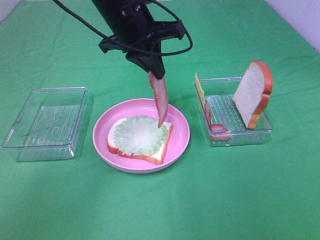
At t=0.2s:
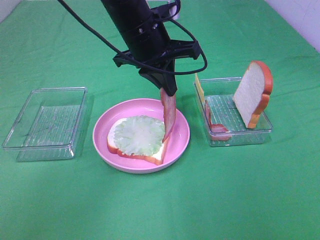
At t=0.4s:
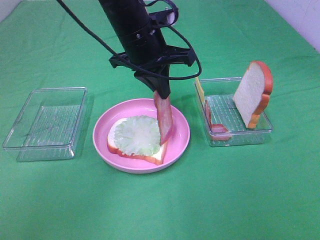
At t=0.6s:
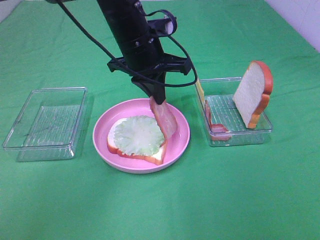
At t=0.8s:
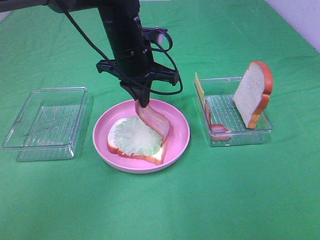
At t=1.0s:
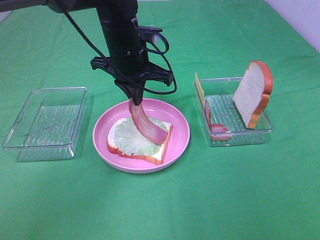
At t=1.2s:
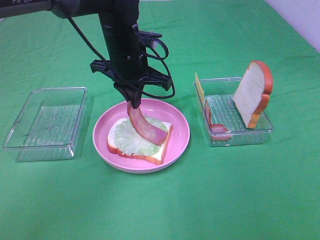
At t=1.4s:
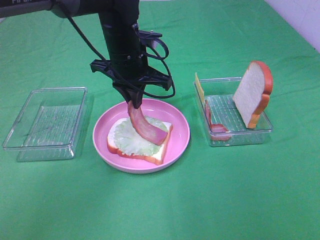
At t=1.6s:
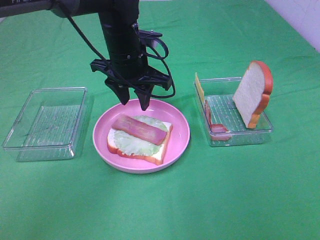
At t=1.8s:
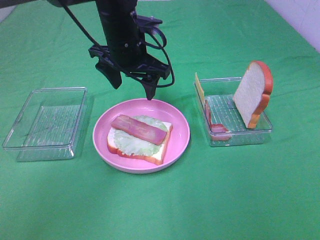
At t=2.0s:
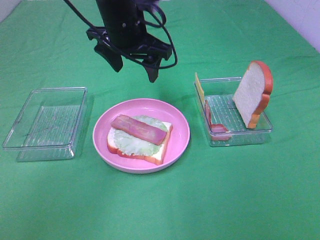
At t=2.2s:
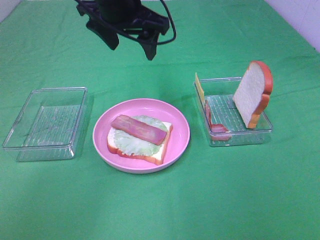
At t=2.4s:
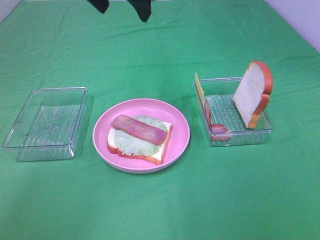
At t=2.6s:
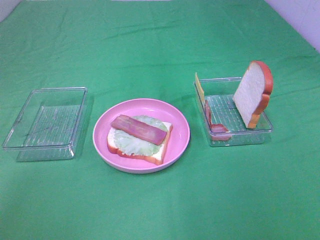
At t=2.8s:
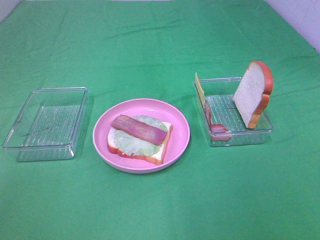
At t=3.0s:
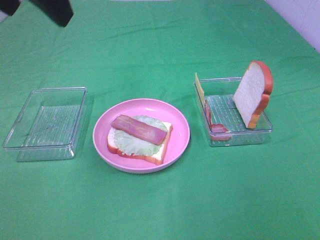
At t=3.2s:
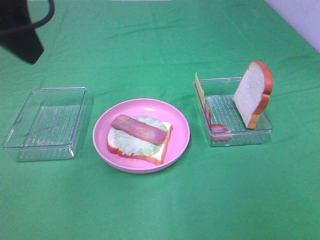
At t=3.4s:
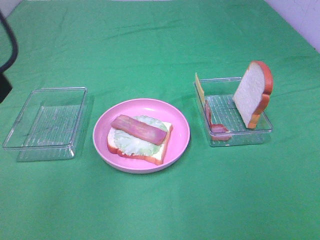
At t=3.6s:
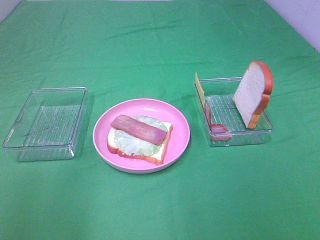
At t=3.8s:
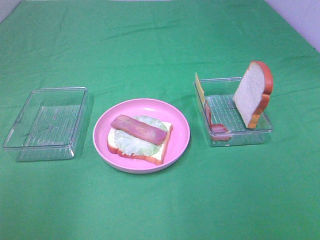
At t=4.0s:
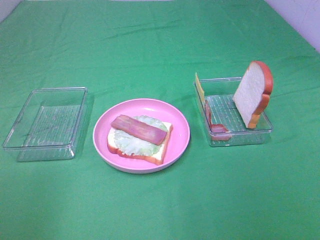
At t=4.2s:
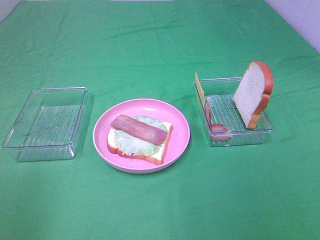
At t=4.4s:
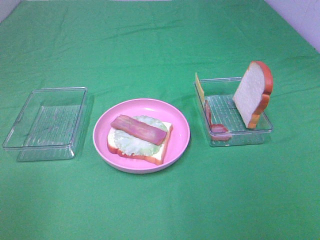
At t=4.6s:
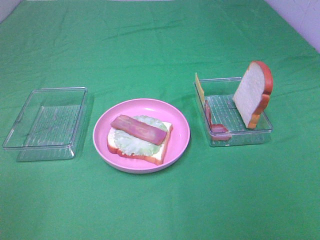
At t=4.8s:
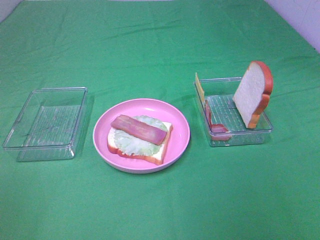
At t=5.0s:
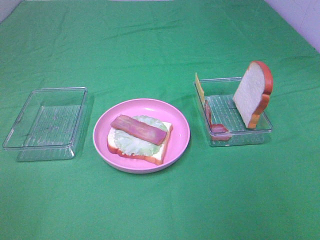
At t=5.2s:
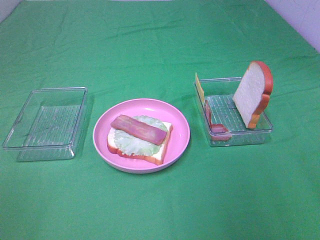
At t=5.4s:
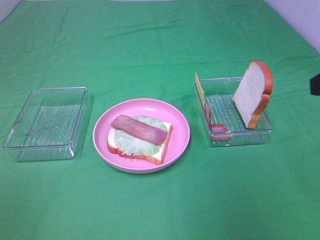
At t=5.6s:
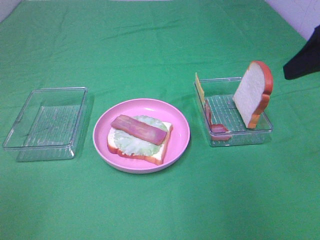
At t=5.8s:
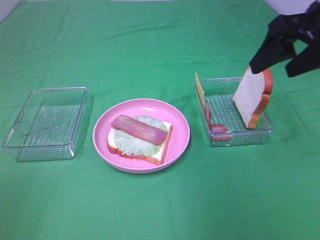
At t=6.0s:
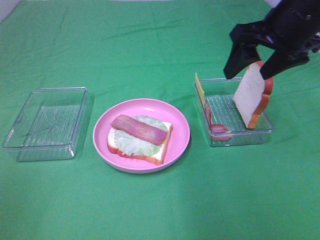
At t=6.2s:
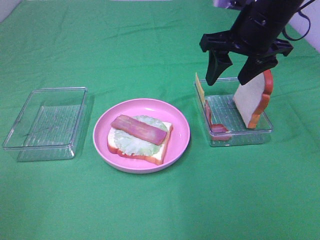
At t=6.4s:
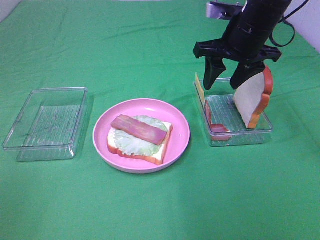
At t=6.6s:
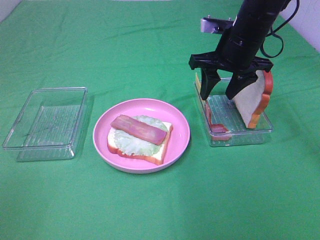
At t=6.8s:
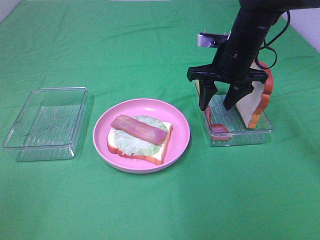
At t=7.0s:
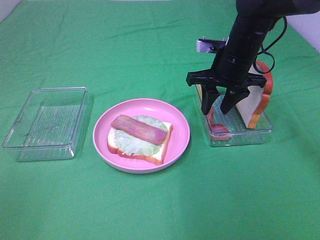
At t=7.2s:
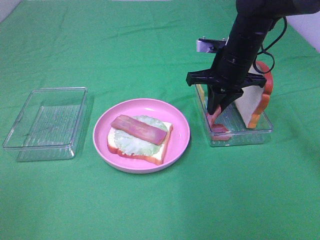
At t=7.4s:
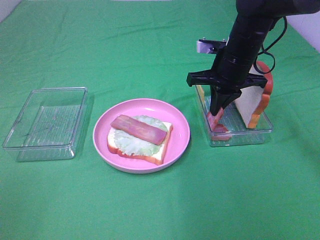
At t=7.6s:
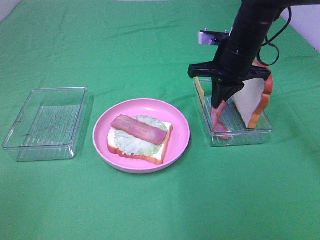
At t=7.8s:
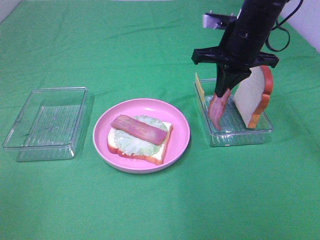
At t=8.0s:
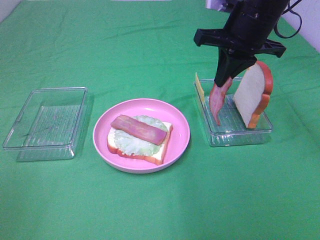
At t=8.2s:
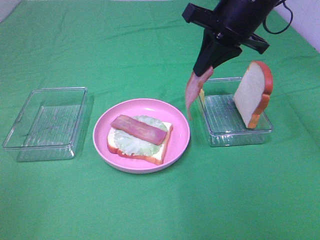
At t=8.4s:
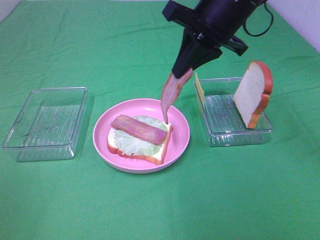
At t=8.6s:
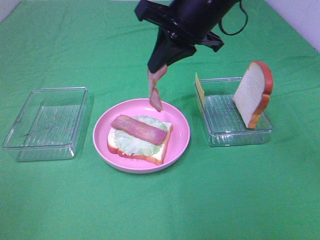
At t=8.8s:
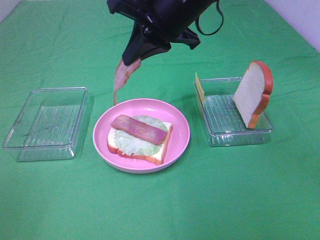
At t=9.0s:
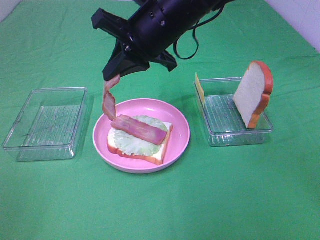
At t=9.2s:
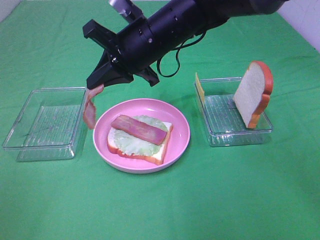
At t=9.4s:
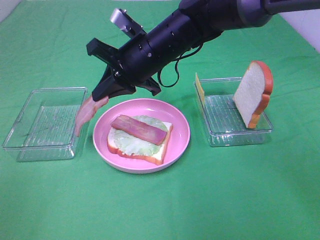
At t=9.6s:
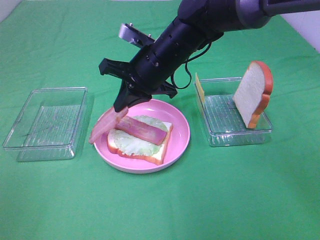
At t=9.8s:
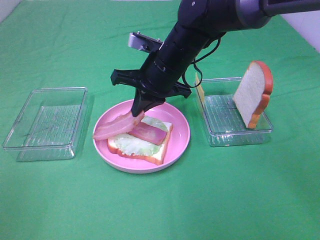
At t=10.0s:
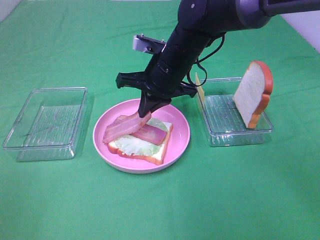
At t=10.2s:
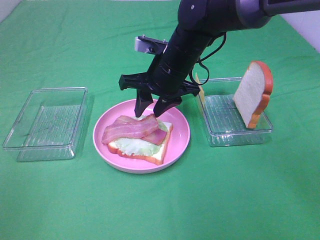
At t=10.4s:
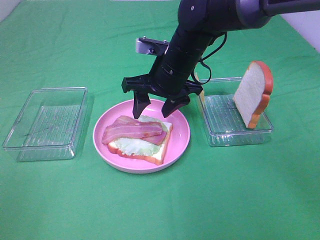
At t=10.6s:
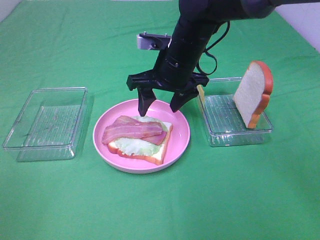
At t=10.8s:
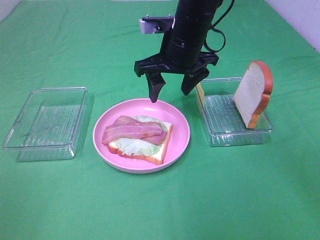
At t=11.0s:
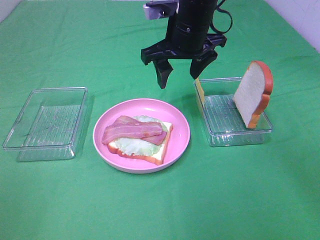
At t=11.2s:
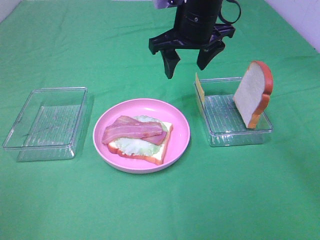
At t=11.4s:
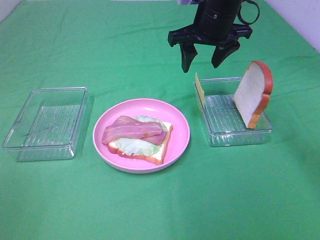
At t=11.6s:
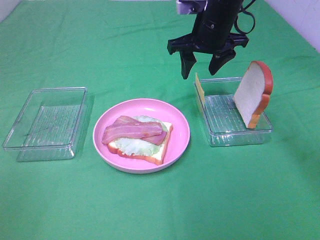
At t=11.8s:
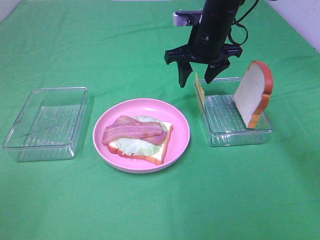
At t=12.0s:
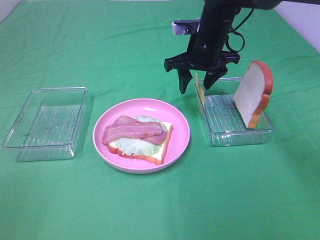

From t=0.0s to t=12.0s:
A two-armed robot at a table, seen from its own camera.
Task of the whole recording: Make sandwiches.
Step, from t=0.0s to t=1.6s: Left hand:place bacon on lettuce slice.
Step, from t=1.8s to t=7.4s: Right hand:grab the bacon.
Step, from t=7.6s to t=10.2s: Right hand:place bacon on bacon.
From t=0.0s to t=1.6s: The left gripper is displaced downward by some 5 cm, and opens up.
From t=1.6s to t=3.0s: The left gripper moves upward, backward and to the left, some 30 cm.
From t=3.0s to t=4.4s: The left gripper shifts approximately 30 cm backward, to the left and downward.
From t=4.4s to t=6.0s: The right gripper goes roughly 35 cm forward.
From t=6.0s to t=7.6s: The right gripper moves downward and forward, approximately 10 cm, and closes up.
From t=7.6s to t=9.0s: The right gripper travels to the left and upward by approximately 15 cm.
From t=9.0s to t=10.4s: The right gripper moves downward, about 10 cm, and opens up.
From t=10.4s to t=12.0s: The right gripper shifts roughly 10 cm forward and to the right, and moves about 10 cm upward and comes back.

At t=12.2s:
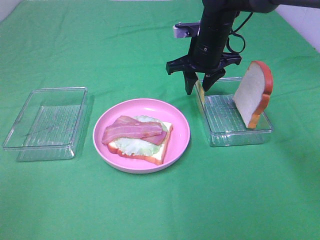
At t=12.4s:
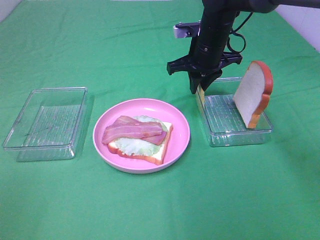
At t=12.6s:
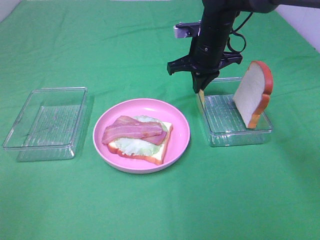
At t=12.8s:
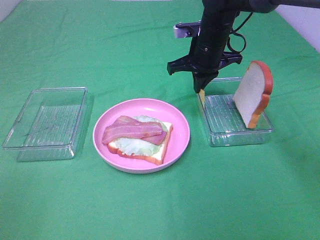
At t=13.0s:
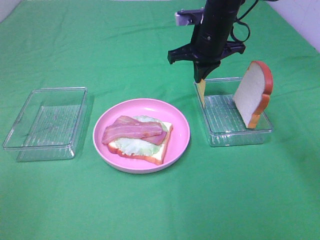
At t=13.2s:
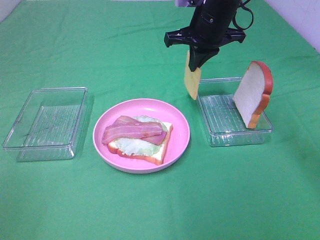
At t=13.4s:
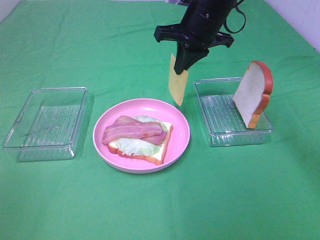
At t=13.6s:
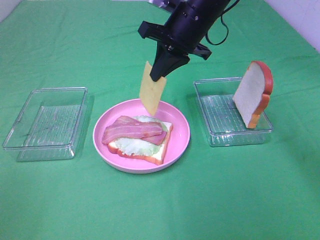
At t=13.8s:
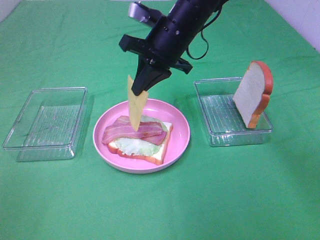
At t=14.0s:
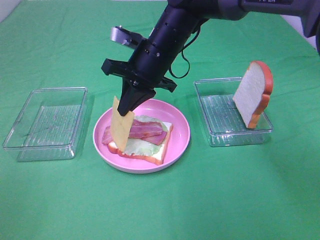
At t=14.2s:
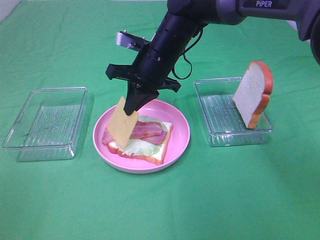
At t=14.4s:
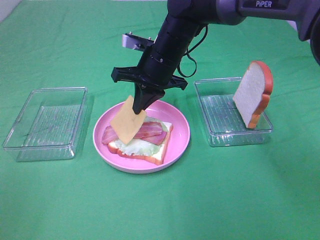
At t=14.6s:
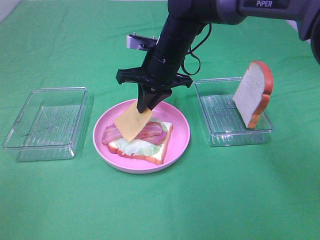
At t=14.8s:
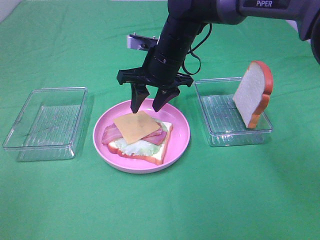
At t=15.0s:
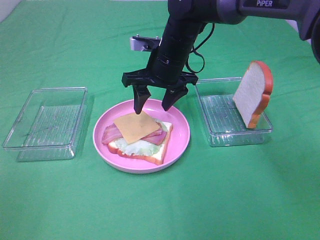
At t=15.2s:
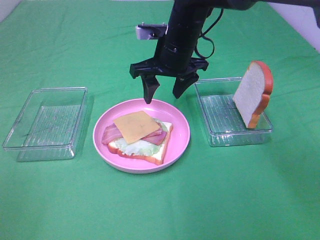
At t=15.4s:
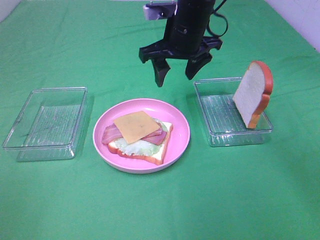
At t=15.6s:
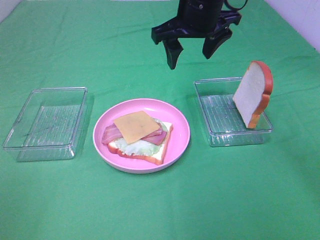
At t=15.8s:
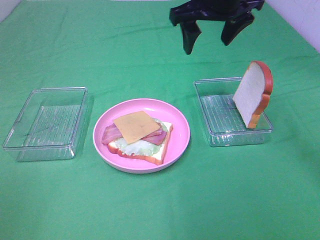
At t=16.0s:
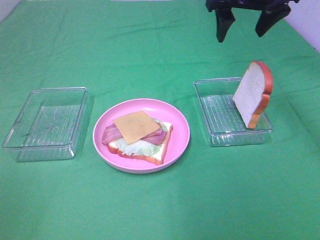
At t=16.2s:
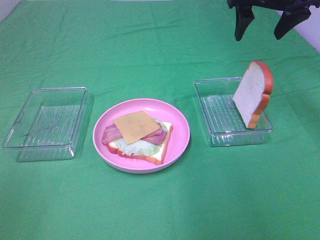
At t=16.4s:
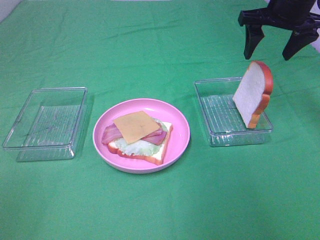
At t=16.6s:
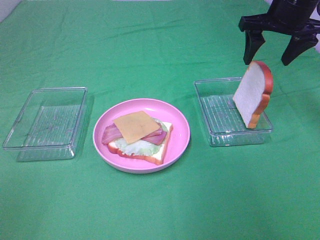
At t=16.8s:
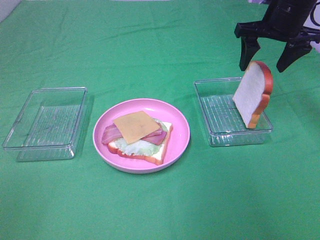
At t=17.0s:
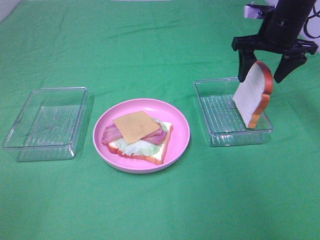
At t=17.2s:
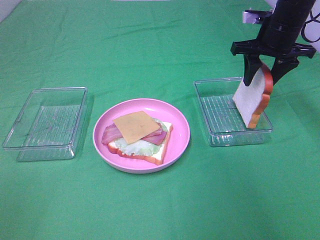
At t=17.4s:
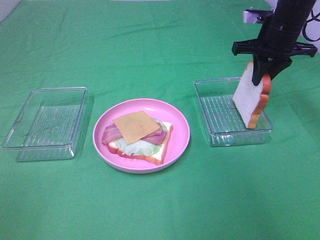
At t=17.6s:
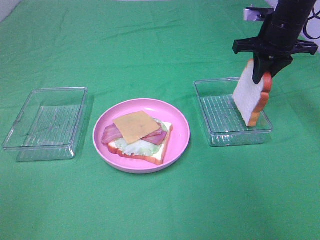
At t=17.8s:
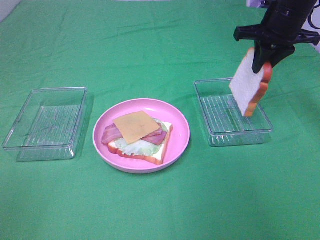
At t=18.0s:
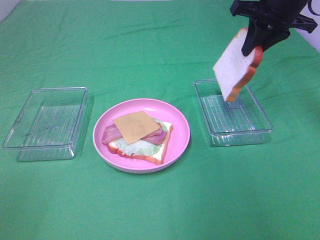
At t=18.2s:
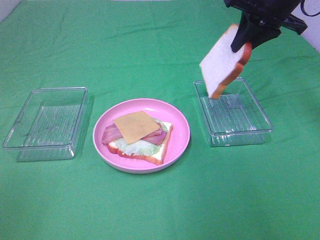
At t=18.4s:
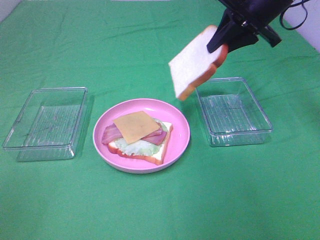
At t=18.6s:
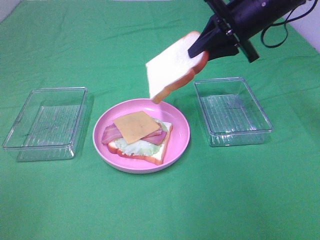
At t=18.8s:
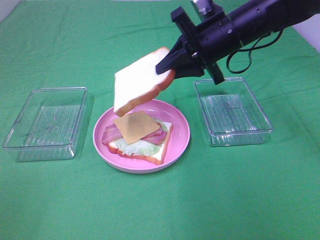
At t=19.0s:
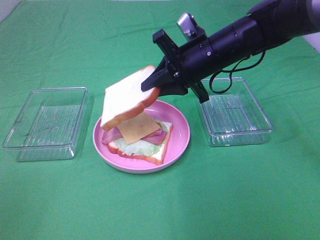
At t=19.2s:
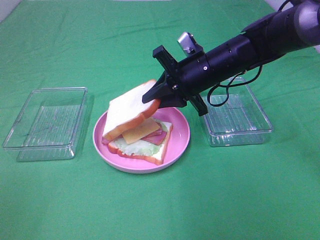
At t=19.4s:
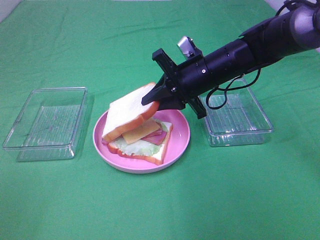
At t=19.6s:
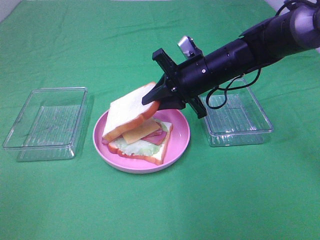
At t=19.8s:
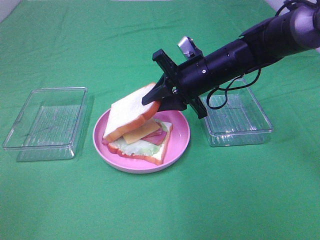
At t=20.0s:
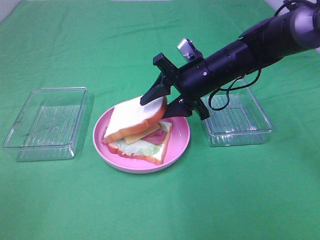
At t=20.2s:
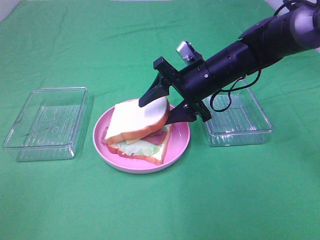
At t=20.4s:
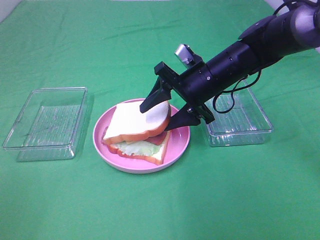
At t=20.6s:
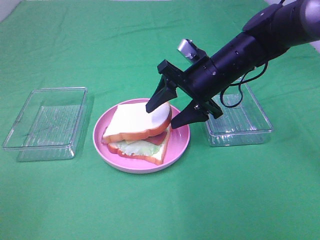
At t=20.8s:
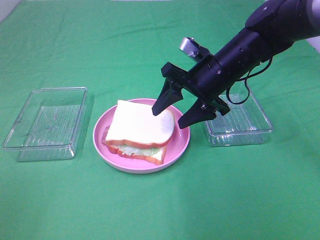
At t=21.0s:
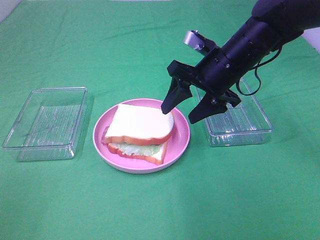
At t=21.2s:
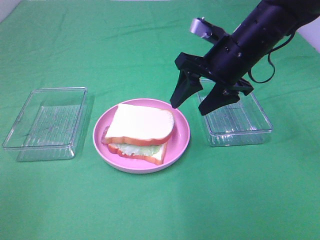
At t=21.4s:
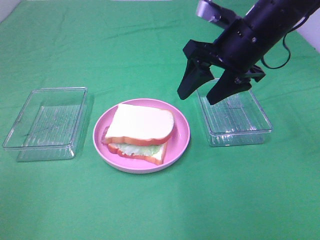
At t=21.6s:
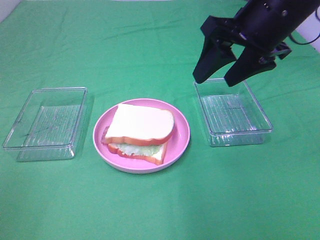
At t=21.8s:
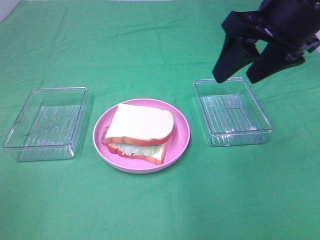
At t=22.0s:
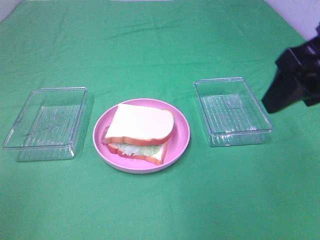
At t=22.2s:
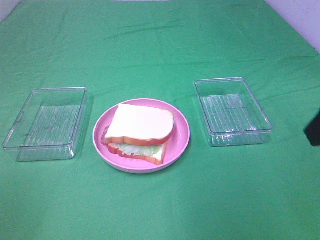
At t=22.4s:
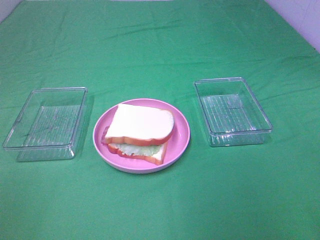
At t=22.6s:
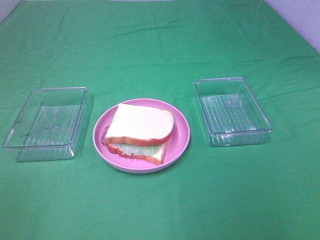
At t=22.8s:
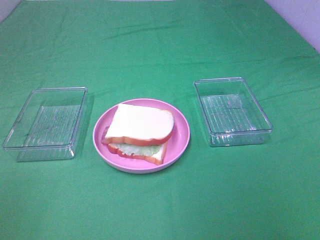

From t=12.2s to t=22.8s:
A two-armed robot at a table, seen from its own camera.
Task of the whole recording: Make sandwiches.
Step, from t=13.0s to t=14.8s: Right hand:place the cheese slice on top of the bacon.
Step, from t=15.0s to t=17.4s: Right hand:grab the bread slice.
Step, from t=17.6s to t=20.8s: Right hand:place the bread slice on the cheese slice.
From t=12.2s to t=13.8s: The right gripper goes some 10 cm to the left and backward, and closes.
From t=13.8s to t=15.2s: The right gripper opens.
From t=15.2s to t=16.8s: The right gripper is displaced to the right by approximately 20 cm.
From t=16.8s to t=18.2s: The right gripper closes up.
From t=18.2s to t=19.8s: The right gripper heads downward and to the left, covering some 15 cm.
From t=19.8s to t=21.2s: The right gripper heads upward, covering approximately 5 cm, and opens its fingers.
From t=21.2s to t=22.8s: The right gripper travels backward and to the right by roughly 35 cm.
